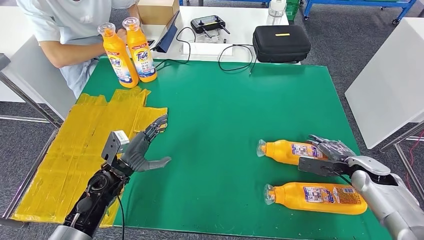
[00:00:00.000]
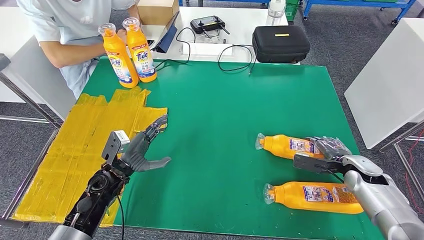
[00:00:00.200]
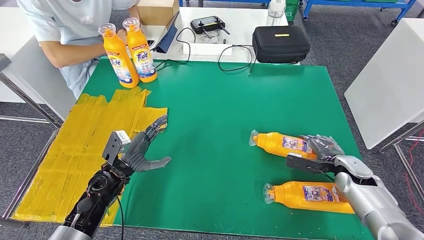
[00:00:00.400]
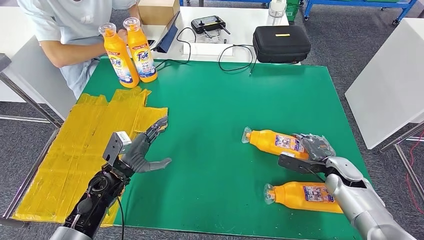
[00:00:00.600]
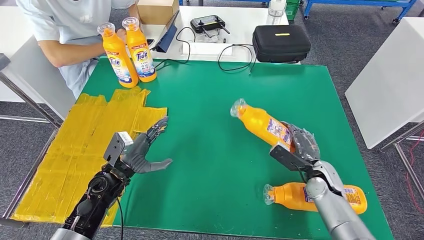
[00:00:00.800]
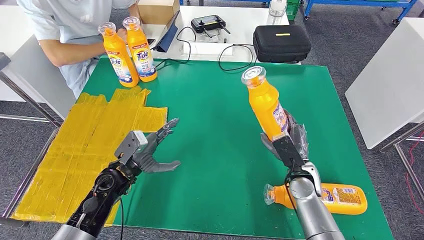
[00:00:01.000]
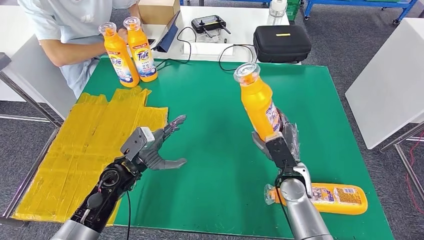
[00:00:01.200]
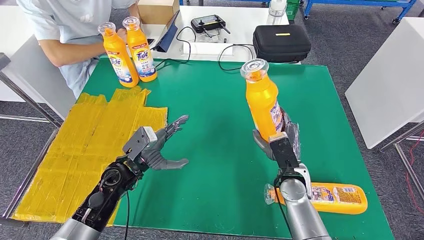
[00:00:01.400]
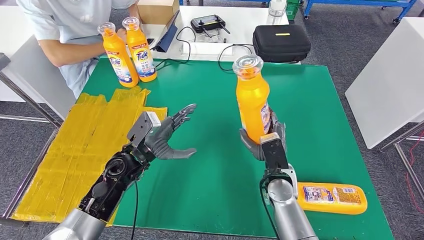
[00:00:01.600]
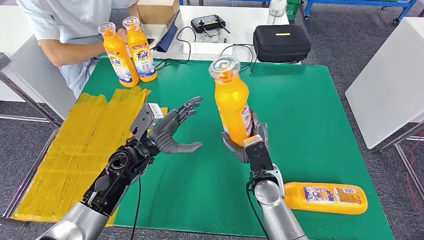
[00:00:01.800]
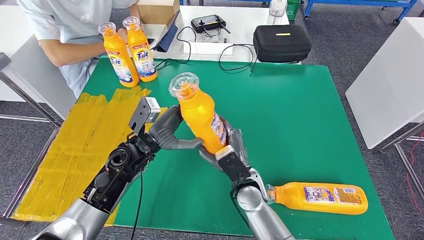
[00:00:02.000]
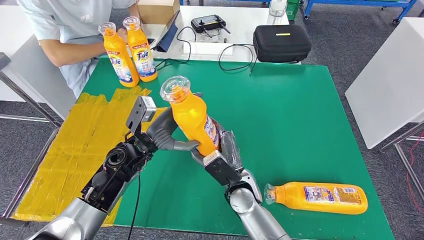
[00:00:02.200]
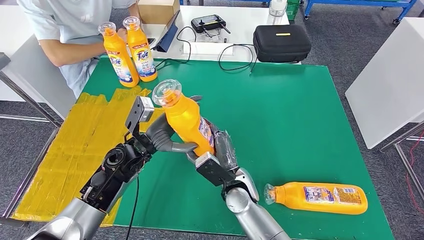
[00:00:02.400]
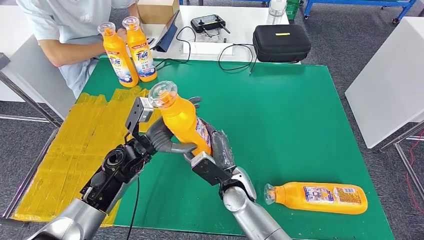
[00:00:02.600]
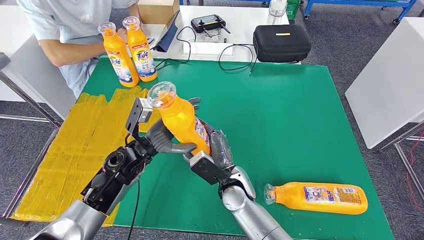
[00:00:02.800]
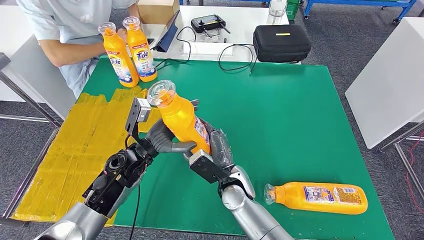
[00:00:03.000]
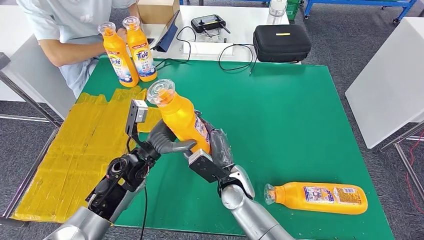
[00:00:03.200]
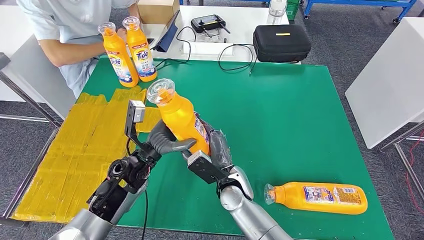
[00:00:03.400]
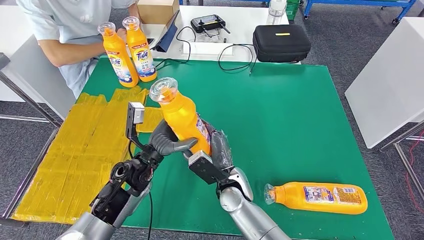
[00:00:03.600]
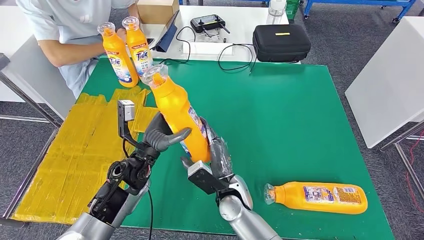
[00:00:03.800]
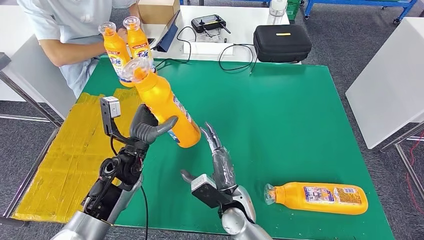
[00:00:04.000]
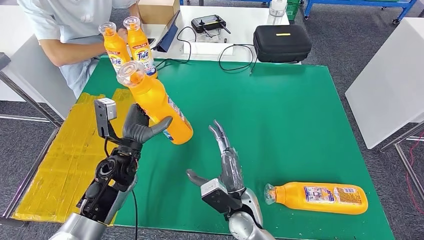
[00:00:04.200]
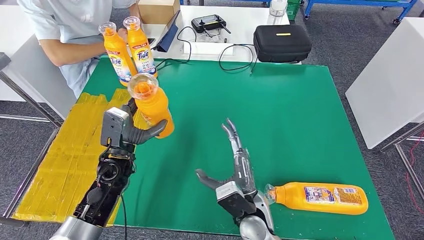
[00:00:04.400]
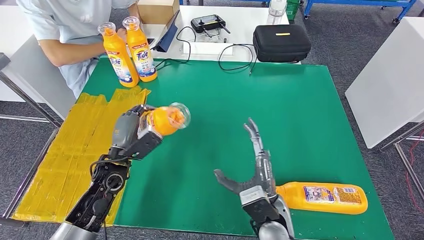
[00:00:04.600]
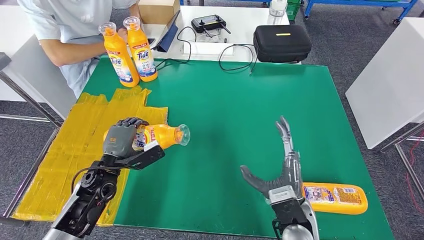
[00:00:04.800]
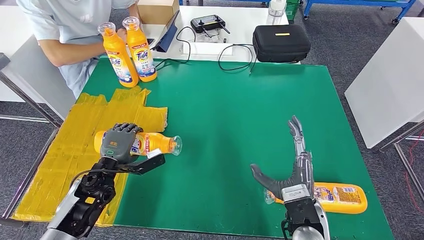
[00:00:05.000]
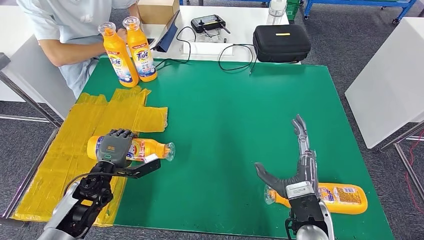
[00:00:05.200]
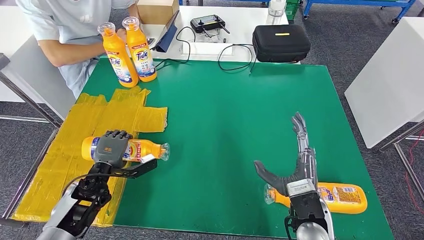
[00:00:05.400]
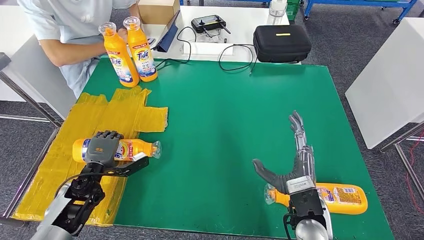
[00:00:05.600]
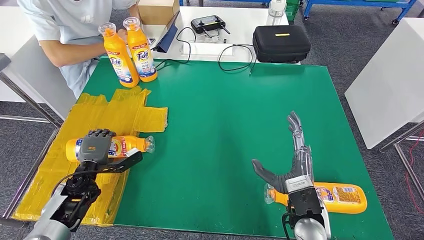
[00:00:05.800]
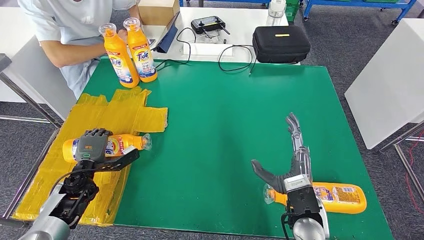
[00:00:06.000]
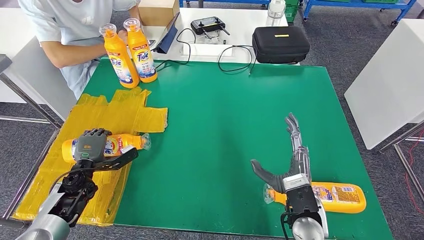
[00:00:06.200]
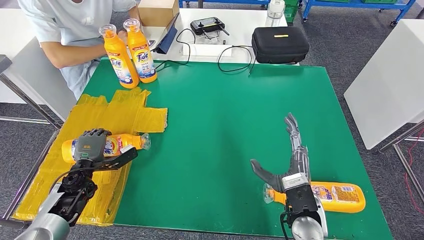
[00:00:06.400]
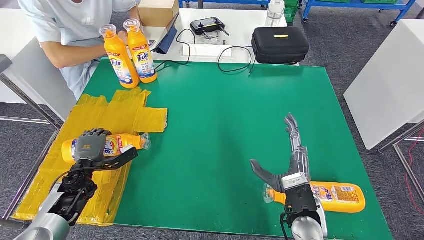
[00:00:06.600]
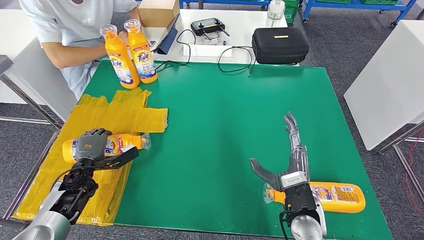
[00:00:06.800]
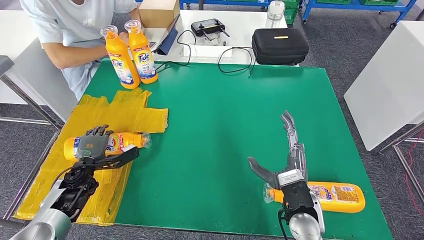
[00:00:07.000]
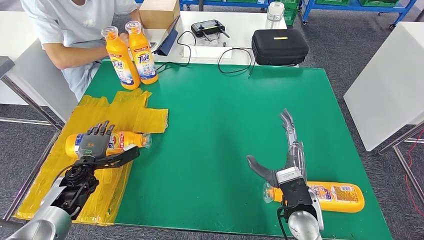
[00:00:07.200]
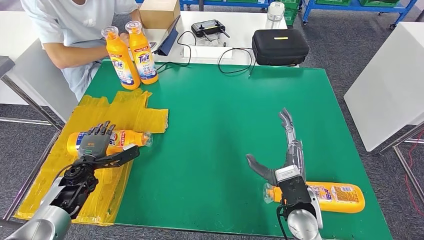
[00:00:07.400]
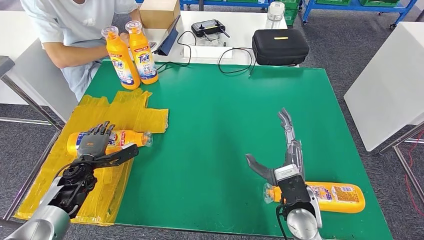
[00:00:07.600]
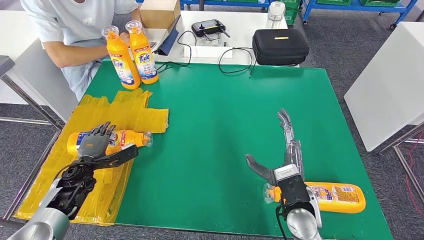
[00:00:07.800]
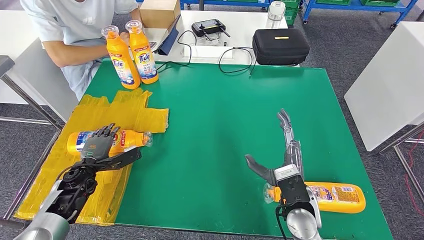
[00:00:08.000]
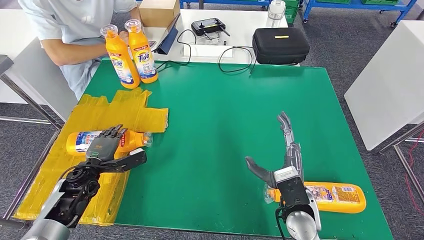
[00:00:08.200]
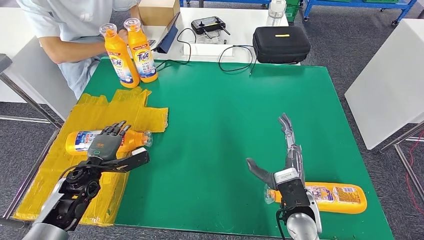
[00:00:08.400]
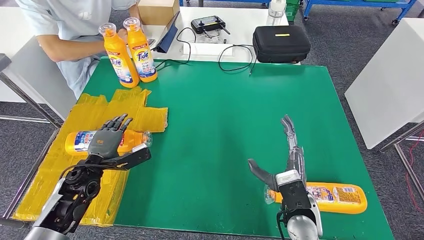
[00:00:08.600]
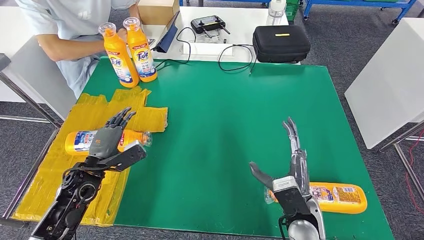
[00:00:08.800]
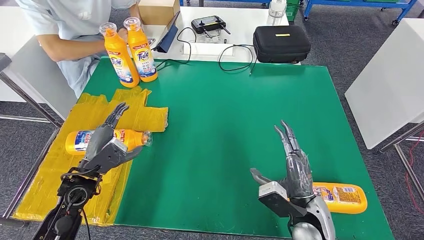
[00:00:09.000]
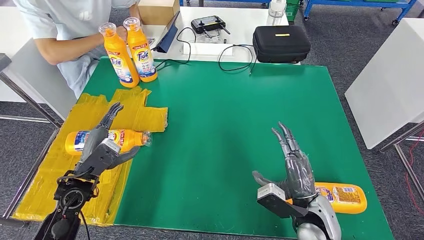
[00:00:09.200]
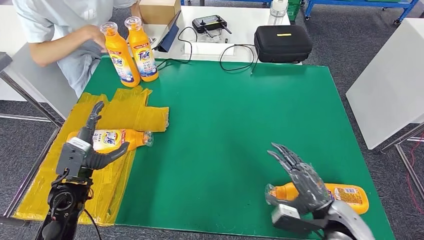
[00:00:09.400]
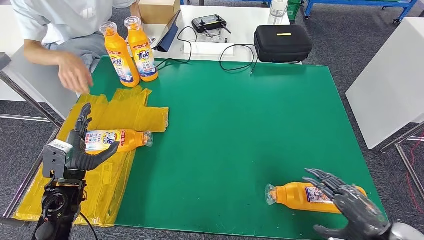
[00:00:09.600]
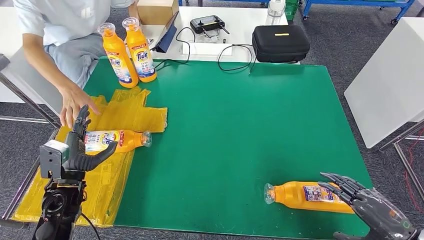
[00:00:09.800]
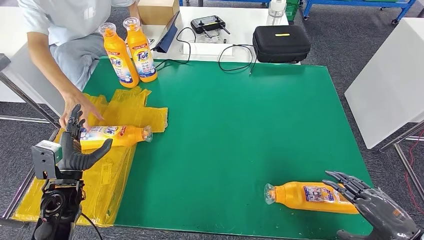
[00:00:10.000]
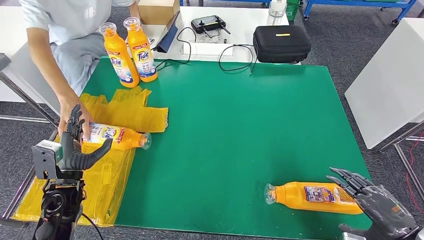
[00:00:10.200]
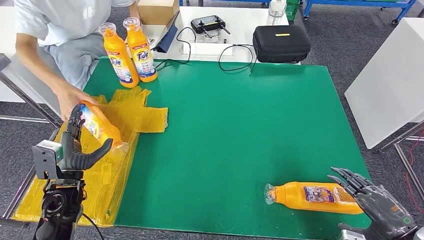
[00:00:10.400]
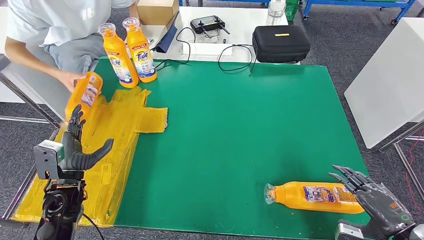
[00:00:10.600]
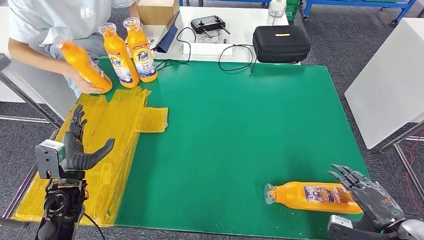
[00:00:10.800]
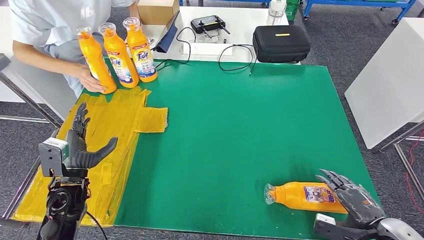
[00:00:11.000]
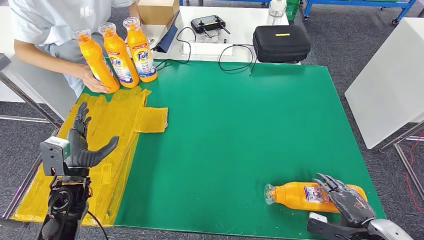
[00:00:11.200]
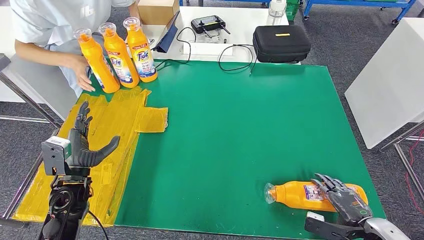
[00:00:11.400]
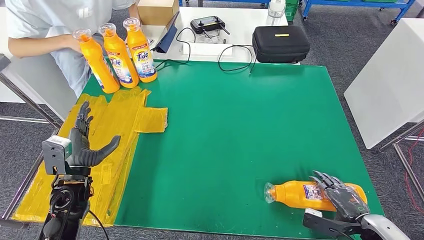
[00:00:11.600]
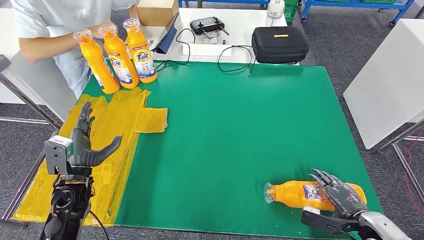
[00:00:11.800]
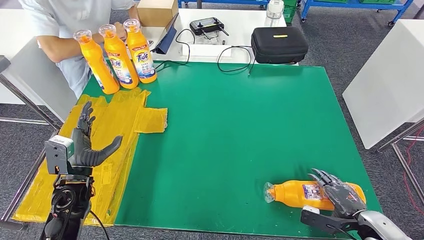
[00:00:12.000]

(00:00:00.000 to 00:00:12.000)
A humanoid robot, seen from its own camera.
Step, 00:00:00.000 - 00:00:03.000: Pick up the bottle from the table.
Step, 00:00:03.200 - 00:00:06.200: Flip the bottle to face forward.
00:00:00.000 - 00:00:01.600: The left hand heads to the right and upward, covering roughly 10 cm. The right hand shifts approximately 25 cm to the left.
00:00:01.600 - 00:00:03.000: The right hand shifts about 10 cm to the left.
00:00:03.000 - 00:00:04.400: The right hand heads backward, covering some 5 cm.
00:00:04.400 - 00:00:06.000: The right hand heads to the right, covering roughly 10 cm; the left hand shifts some 15 cm to the left and downward.
00:00:06.000 - 00:00:07.600: The hands move only a little.

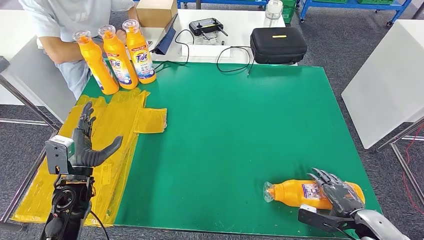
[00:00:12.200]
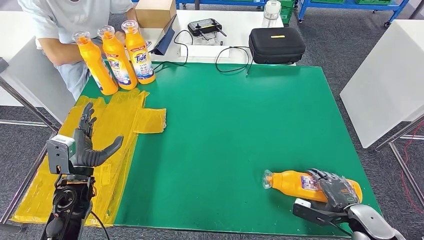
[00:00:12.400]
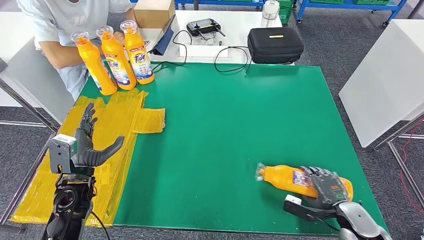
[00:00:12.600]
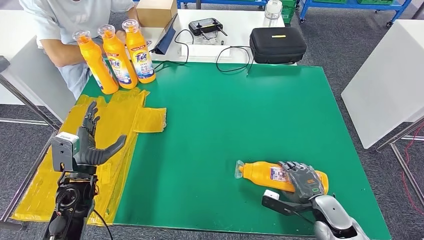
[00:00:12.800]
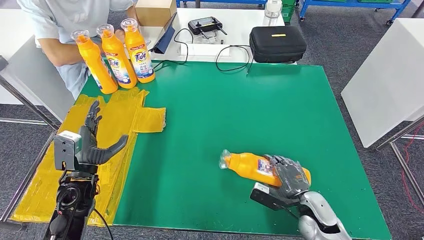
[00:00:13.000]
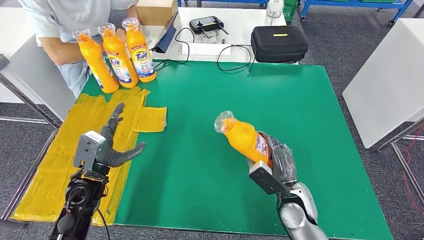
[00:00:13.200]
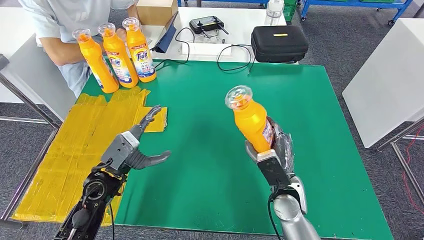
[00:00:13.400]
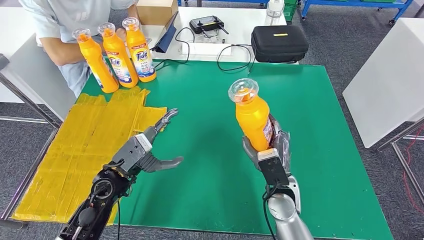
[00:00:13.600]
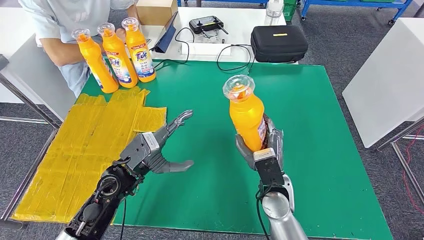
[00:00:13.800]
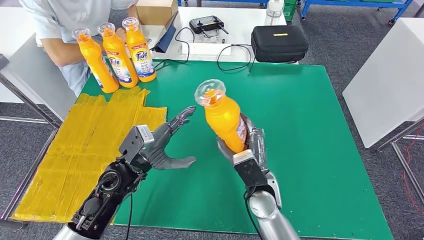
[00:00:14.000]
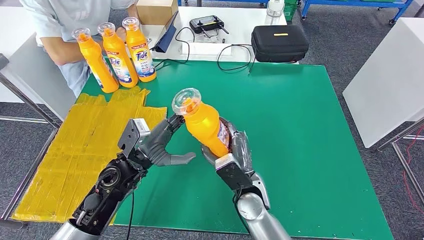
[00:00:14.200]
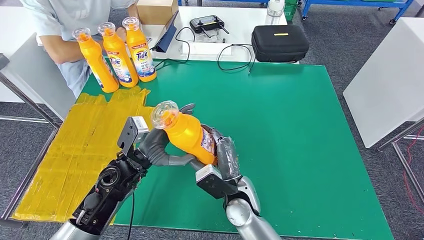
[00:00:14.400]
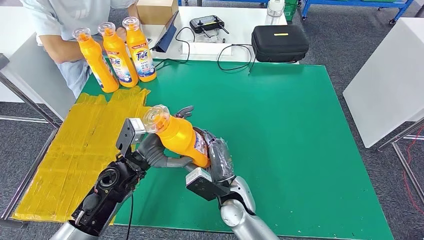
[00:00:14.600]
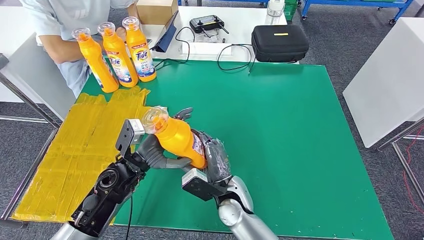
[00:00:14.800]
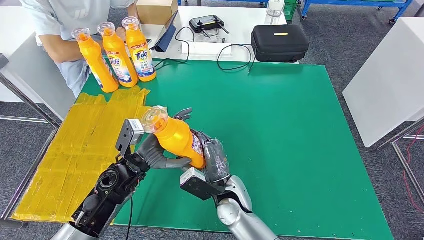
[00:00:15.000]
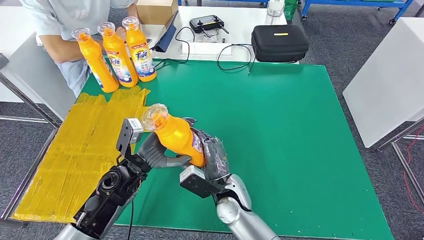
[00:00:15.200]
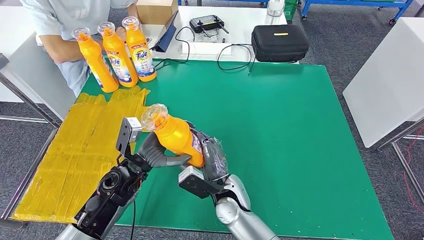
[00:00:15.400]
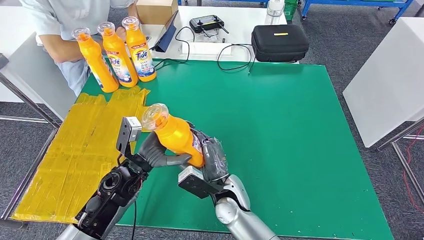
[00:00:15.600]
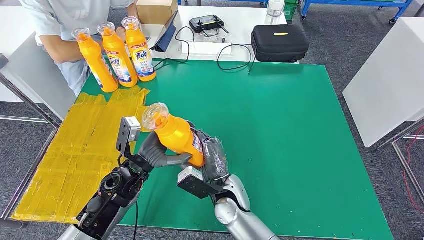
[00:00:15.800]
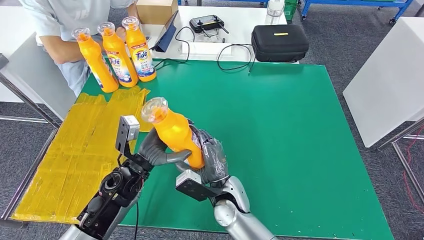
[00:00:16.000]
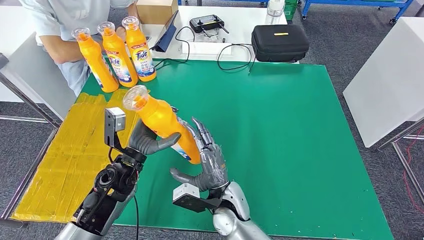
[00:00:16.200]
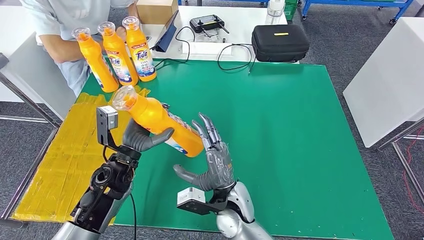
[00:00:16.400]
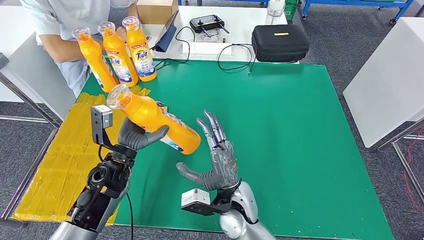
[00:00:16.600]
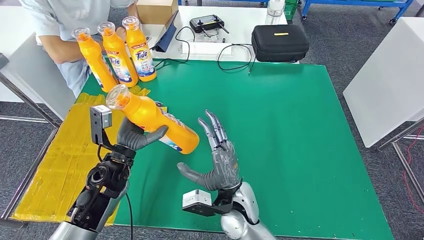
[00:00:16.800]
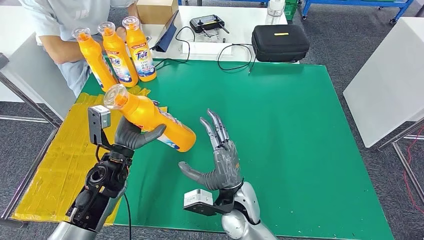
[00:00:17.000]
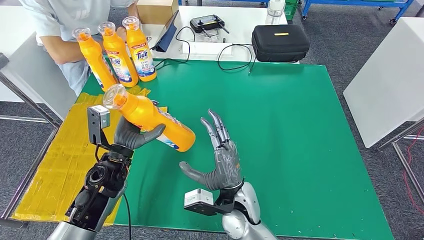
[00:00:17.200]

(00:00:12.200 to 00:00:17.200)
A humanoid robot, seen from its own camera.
Step, 00:00:12.200 - 00:00:14.600: Pick up the bottle from the table.
00:00:13.800 - 00:00:15.600: The right hand heads to the left, covering some 10 cm.
00:00:15.600 - 00:00:17.200: There are only small adjustments of the hands.
